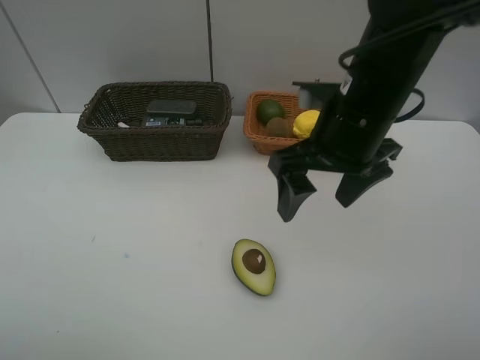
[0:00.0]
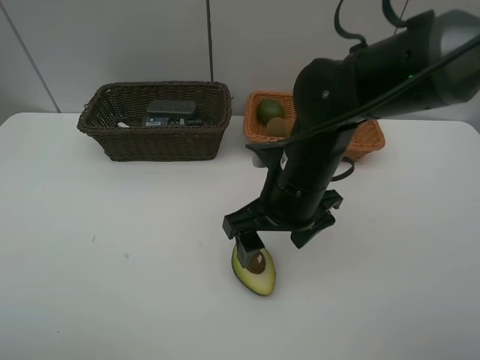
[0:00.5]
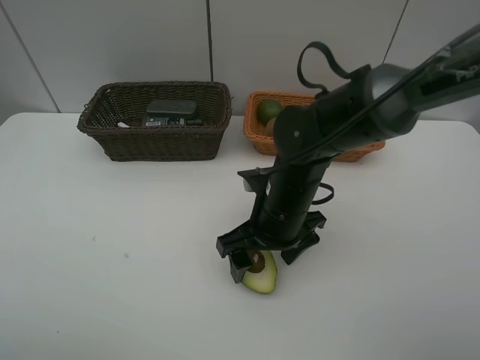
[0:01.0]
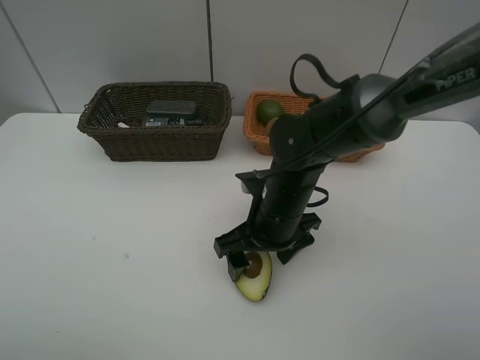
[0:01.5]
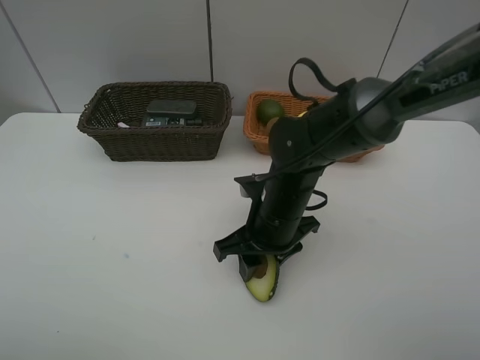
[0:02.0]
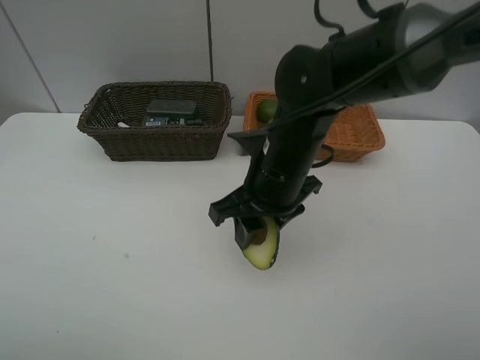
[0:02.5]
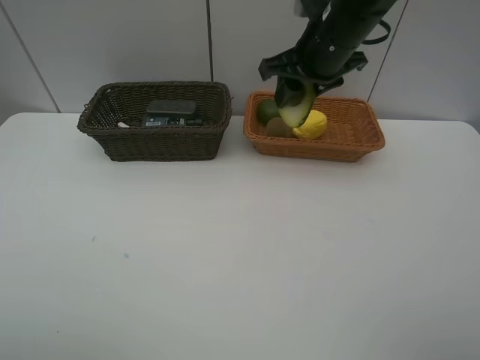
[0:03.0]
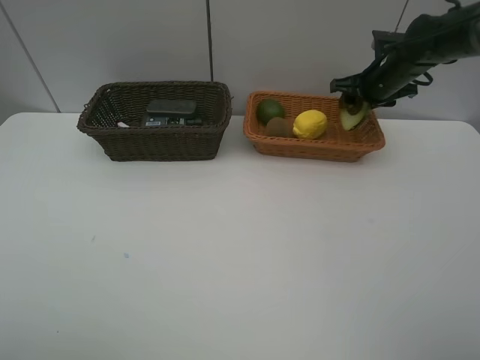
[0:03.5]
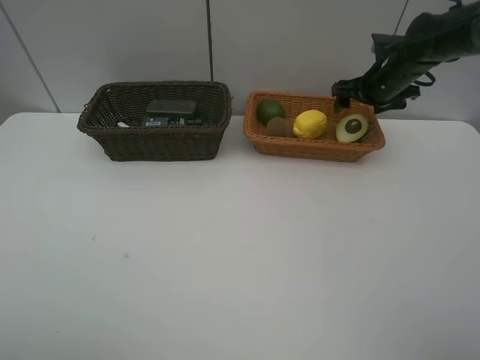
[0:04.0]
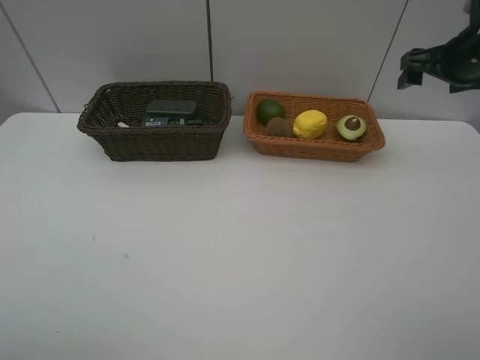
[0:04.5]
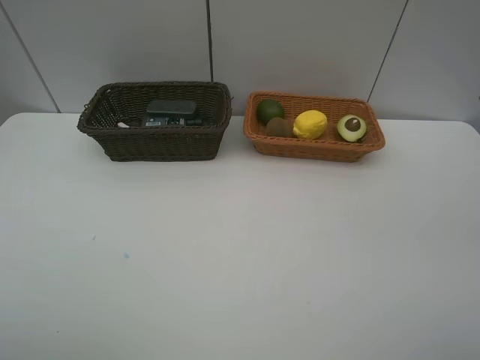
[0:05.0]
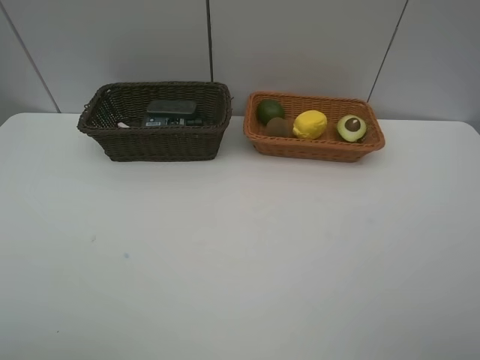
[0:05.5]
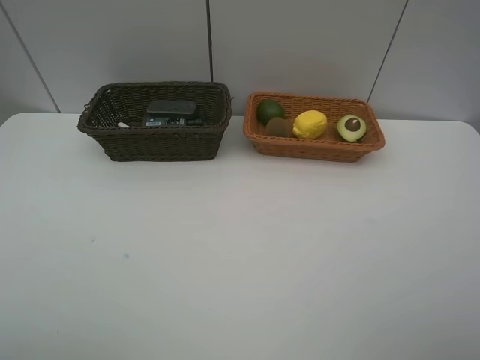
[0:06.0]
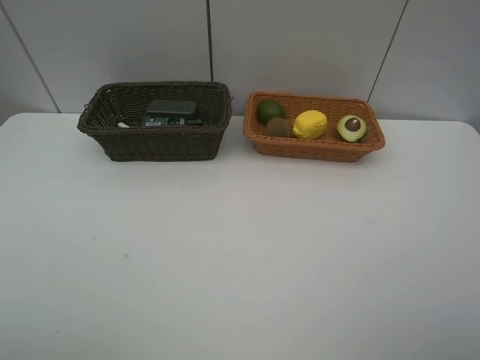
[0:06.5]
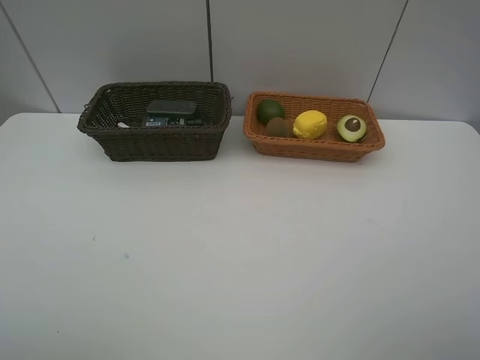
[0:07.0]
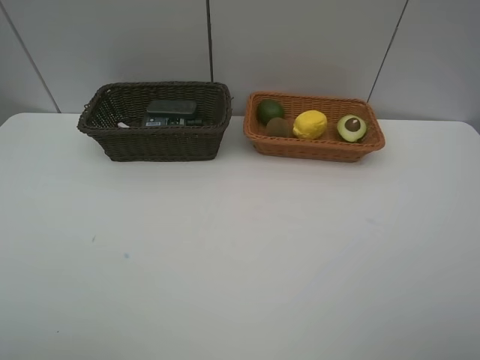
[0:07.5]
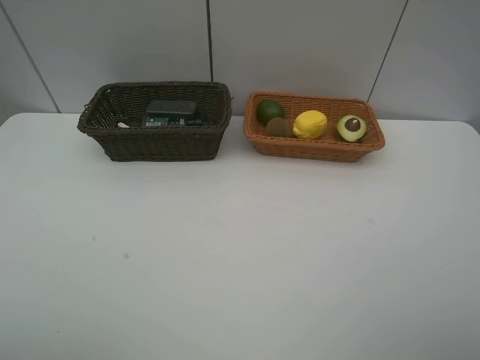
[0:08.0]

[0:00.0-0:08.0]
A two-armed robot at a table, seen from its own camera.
Task of the whole recording: Place multiple objects separately in different baskets.
Step, 0.0 to 2.0 s: Pick up the avocado with right gripper.
Step, 2.5 to 3.5 s: Place the avocado in the light basket with right gripper.
0.0 to 2.0 s: The right gripper is displaced downward by roughly 15 cm, and closes.
2.0 to 4.0 s: The right gripper is displaced forward and to the right by roughly 30 cm, and opens up.
4.0 to 6.0 s: The right gripper goes roughly 50 cm backward.

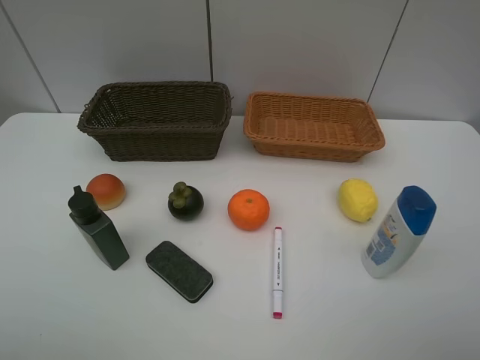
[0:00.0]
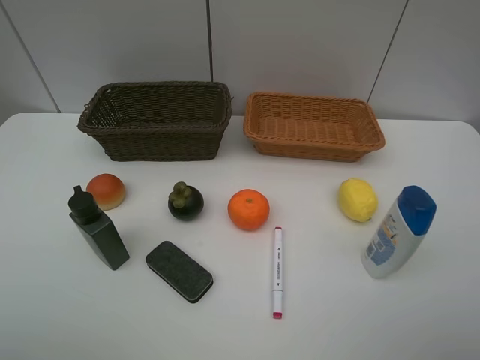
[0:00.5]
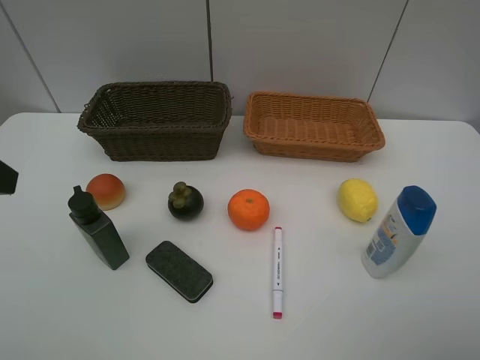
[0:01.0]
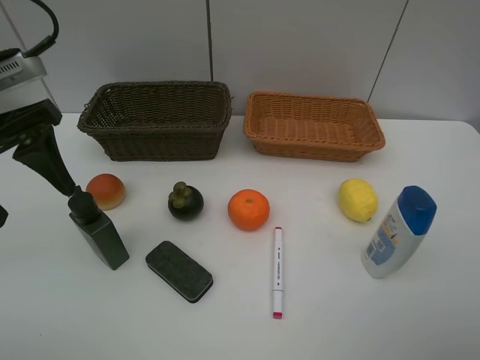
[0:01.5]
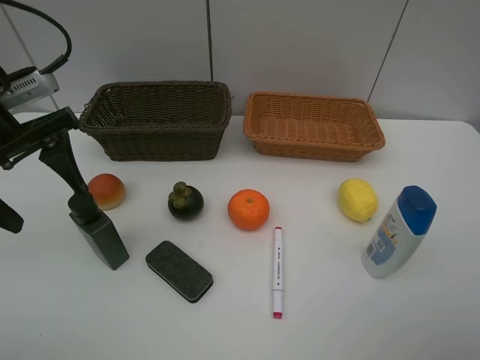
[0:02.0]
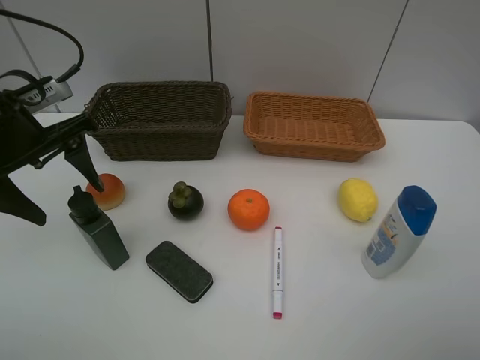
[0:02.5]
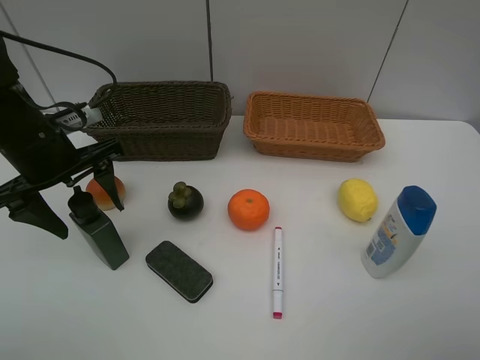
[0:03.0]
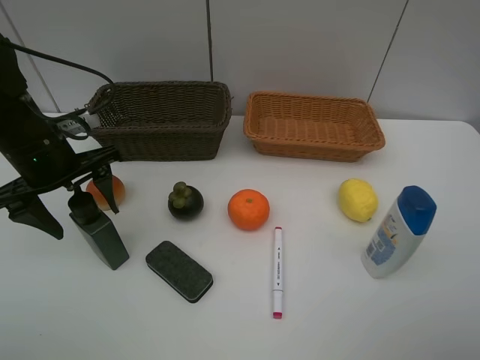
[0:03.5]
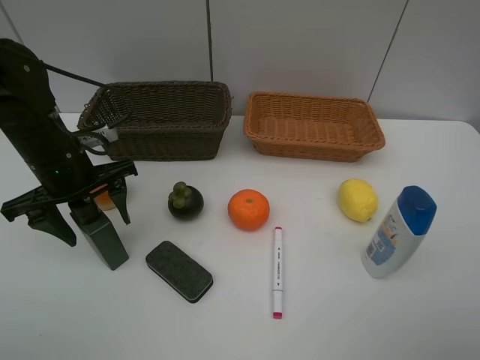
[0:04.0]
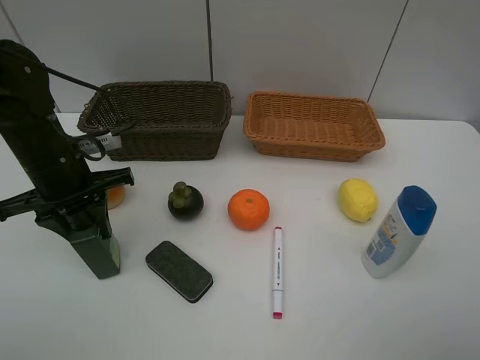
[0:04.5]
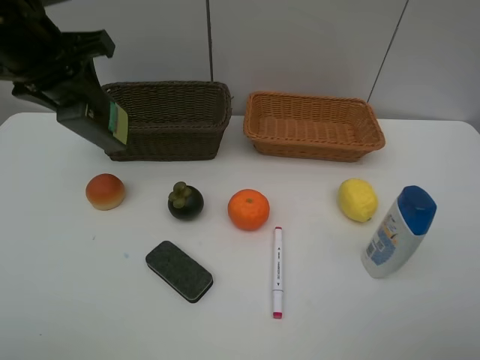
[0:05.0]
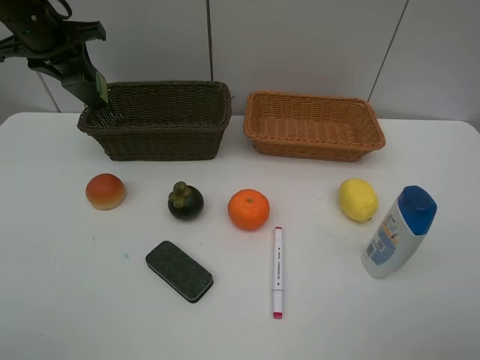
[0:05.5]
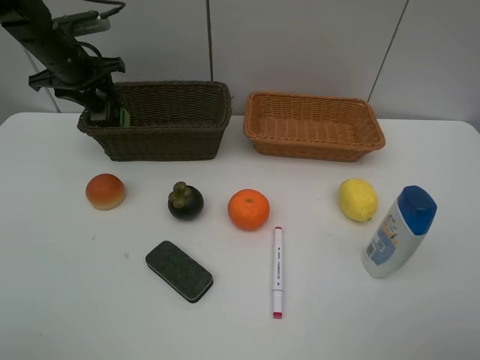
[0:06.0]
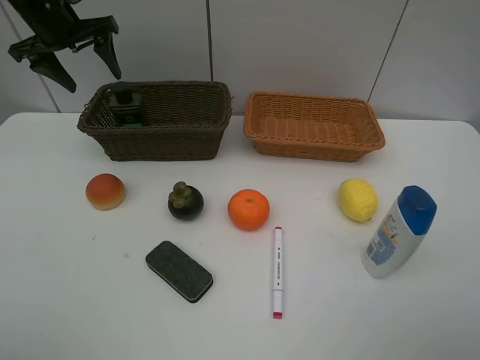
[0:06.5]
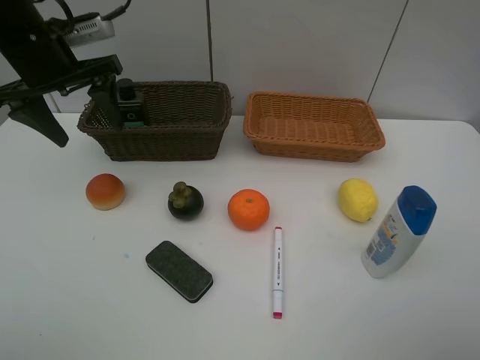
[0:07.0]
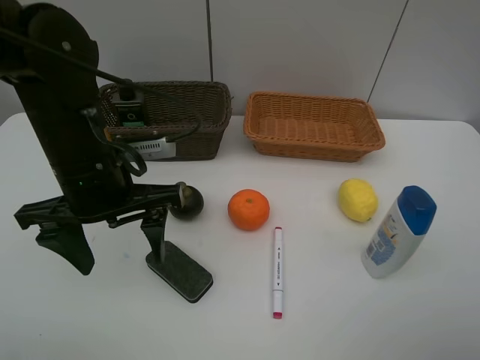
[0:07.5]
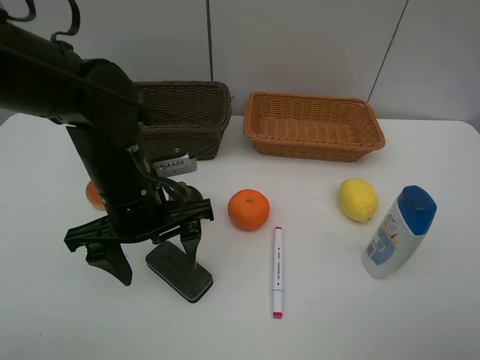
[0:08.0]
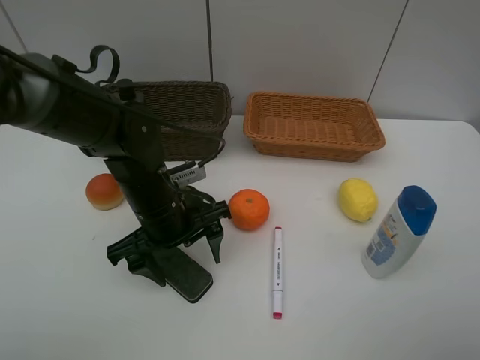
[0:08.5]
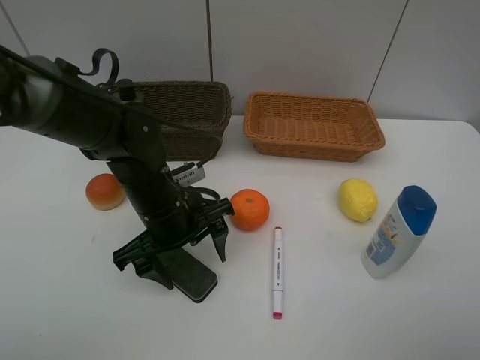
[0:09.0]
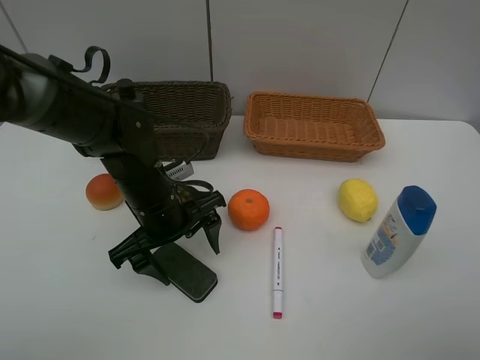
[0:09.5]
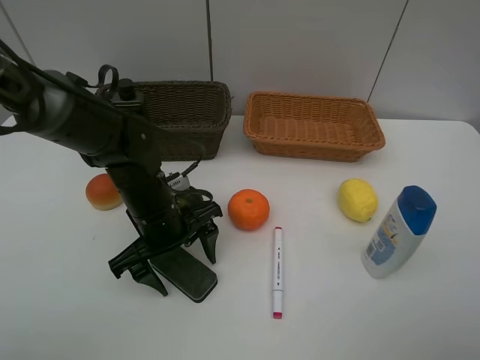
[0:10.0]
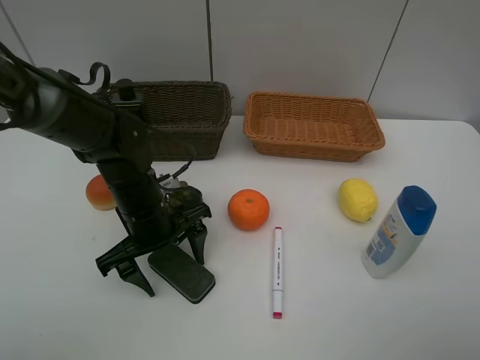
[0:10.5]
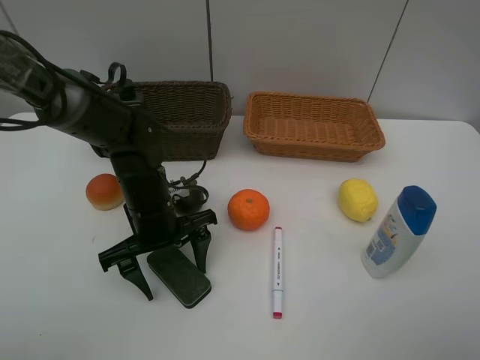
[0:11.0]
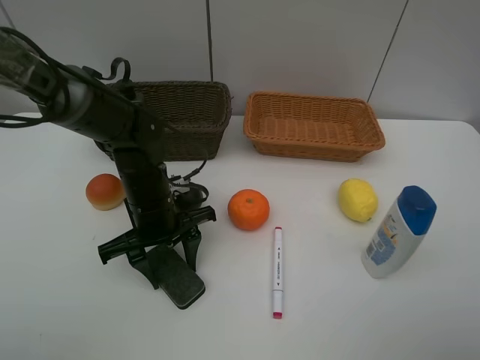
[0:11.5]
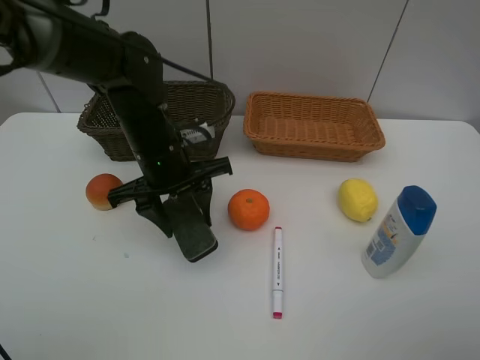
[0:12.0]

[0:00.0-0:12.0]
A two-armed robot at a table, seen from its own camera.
Task of the whole recording: Place multiple objects separately in different baskets.
Step, 0.0 to 4.5 s: Pick up the hard facial cleanser with left gripper.
Step, 5.0 to 6.0 s: Place the hard facial cleanser in the dark basket with left gripper.
Step, 6.5 to 11.5 s: Pick up blackboard eraser with left gripper.
0.0 to 2.0 s: The left gripper travels forward by approximately 25 cm.
2.0 to 4.0 s: The left gripper travels downward by about 10 cm.
4.0 to 6.0 s: The left gripper shifts approximately 20 cm forward, and closes and opens again.
6.0 to 8.0 s: The left gripper goes some 30 cm backward and to the right, and opens up.
8.0 to 10.0 s: The left gripper travels downward by some 5 cm.
10.0 to 12.0 s: The left gripper travels upward by roughly 10 cm, and closes.

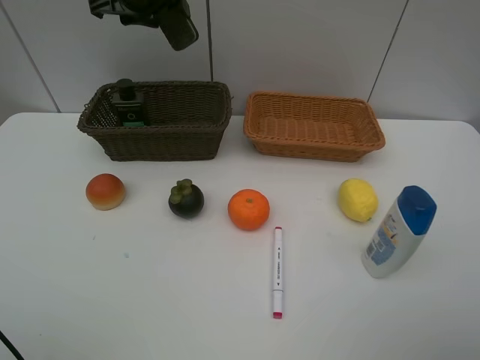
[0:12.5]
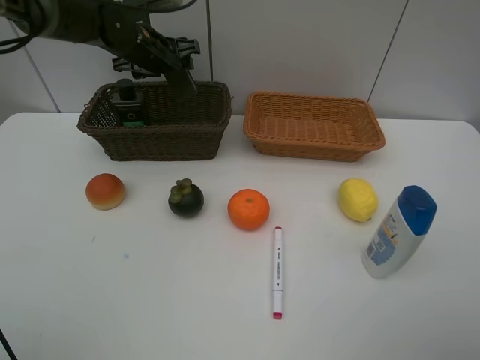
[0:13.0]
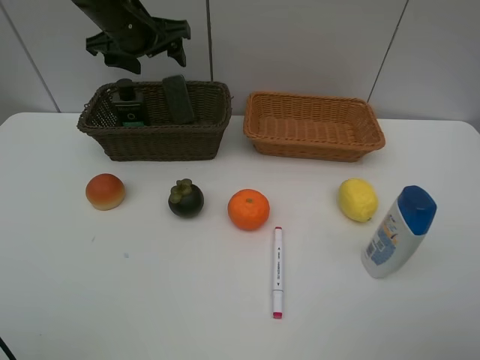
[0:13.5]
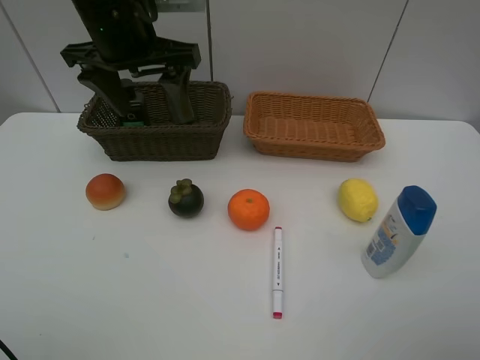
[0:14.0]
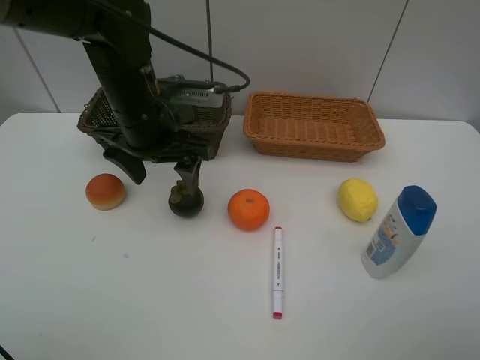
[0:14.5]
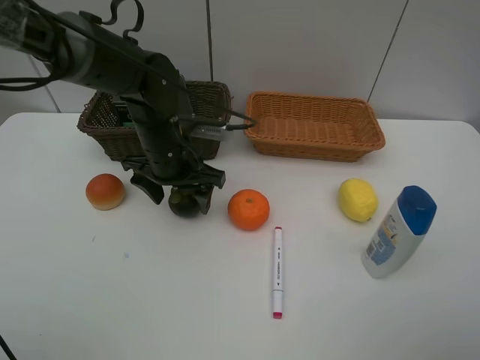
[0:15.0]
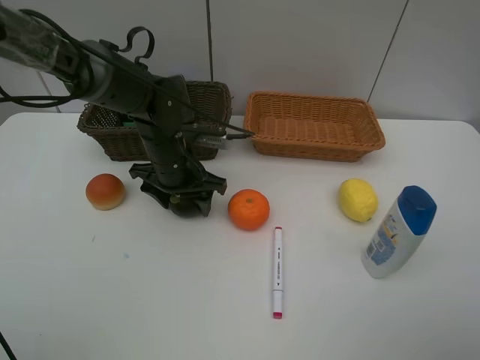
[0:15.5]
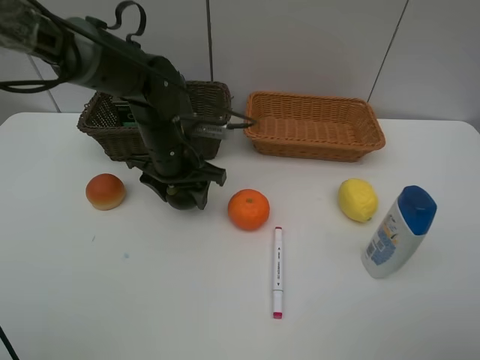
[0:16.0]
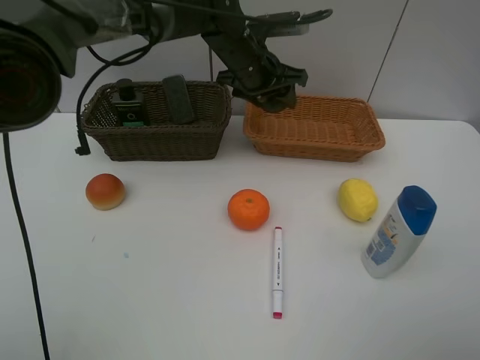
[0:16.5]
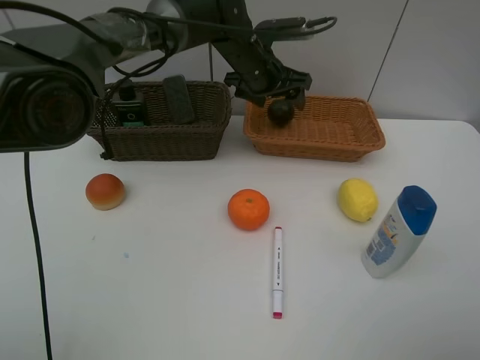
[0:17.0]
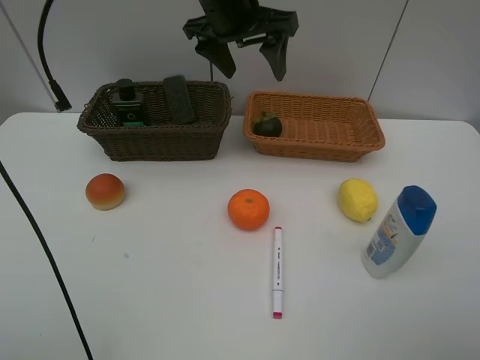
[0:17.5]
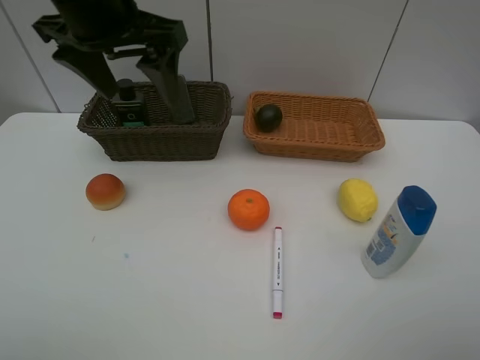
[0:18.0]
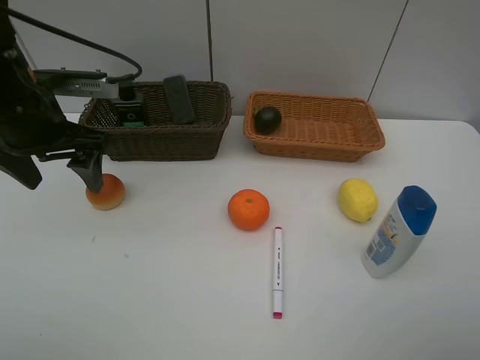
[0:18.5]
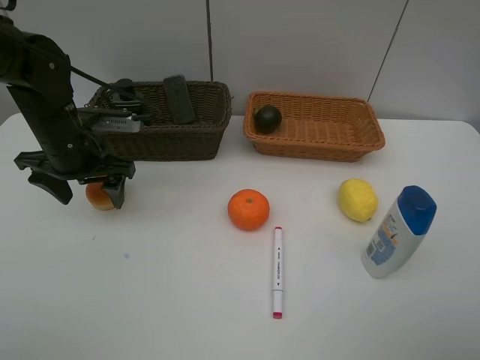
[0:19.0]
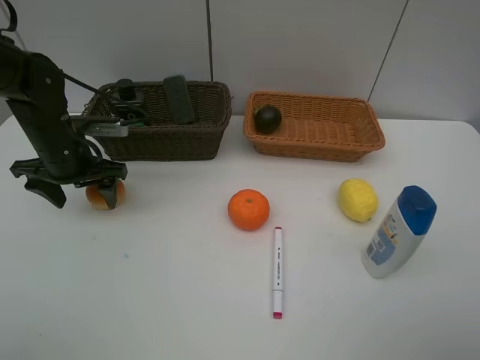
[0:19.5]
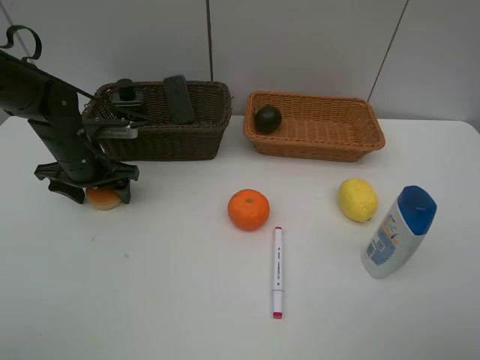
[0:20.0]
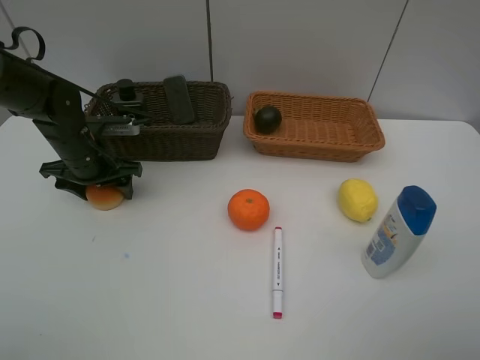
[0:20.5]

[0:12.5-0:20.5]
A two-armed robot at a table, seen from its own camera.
Task of the whole recording: Place multiple objects separately in different baskets.
Step, 13.5 to 16.0 s: Pick up the mangosteen with left gripper.
Step, 16.5 to 17.0 s: Place the mangosteen in the light basket with left gripper.
12.5 to 14.5 s: The left gripper heads backward and downward, covering approximately 15 cm, and opens.
14.5 to 16.5 s: The left gripper travels forward and to the right by roughly 20 cm, and closes.
16.5 to 18.5 s: The left gripper is displaced to the left and backward by about 30 cm, and opens its fingers.
18.5 to 20.5 s: The left gripper travels downward and forward by about 15 cm.
